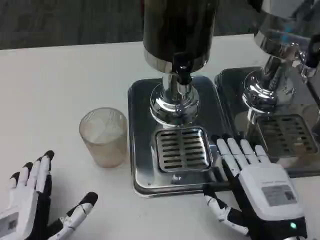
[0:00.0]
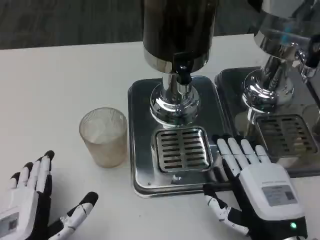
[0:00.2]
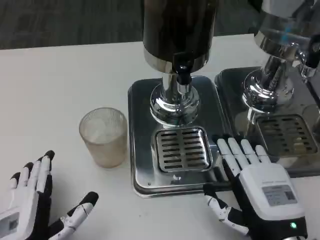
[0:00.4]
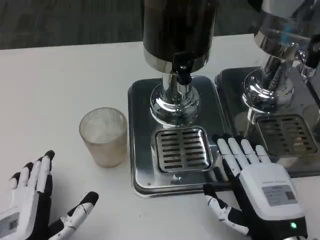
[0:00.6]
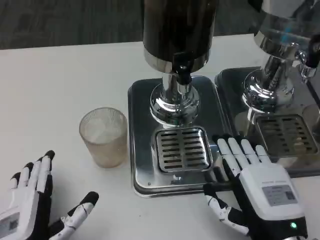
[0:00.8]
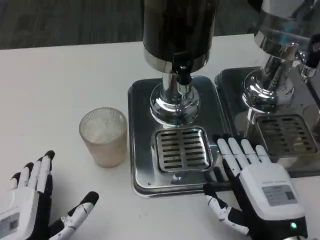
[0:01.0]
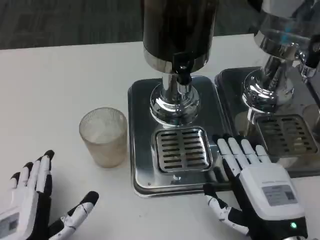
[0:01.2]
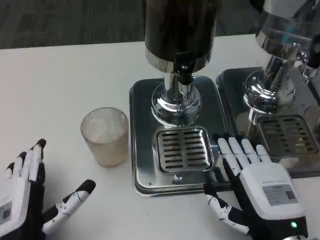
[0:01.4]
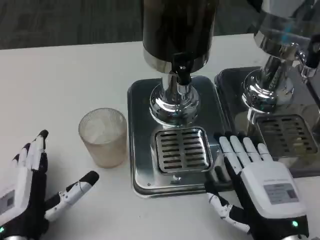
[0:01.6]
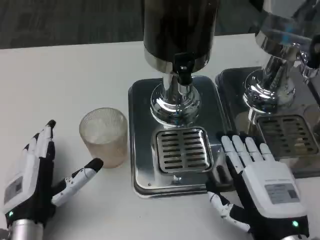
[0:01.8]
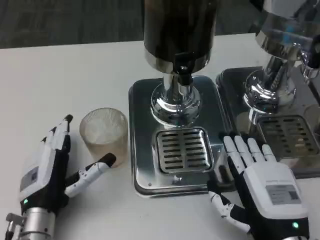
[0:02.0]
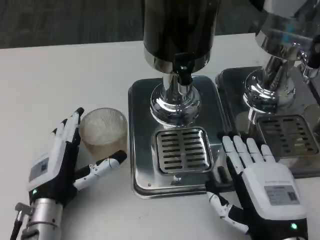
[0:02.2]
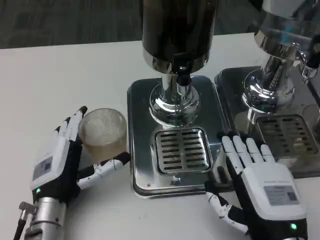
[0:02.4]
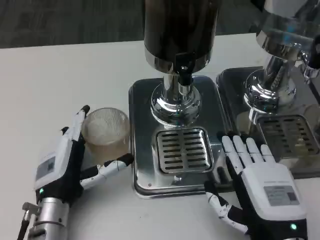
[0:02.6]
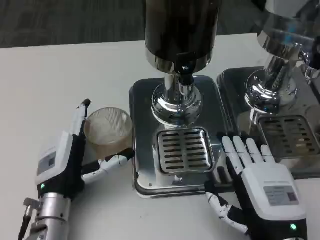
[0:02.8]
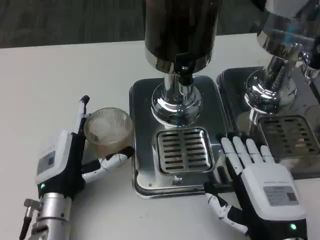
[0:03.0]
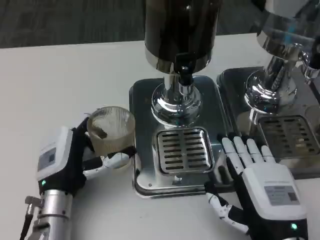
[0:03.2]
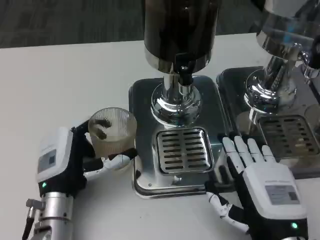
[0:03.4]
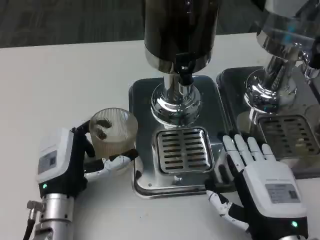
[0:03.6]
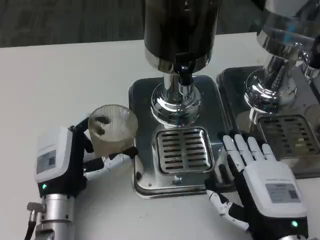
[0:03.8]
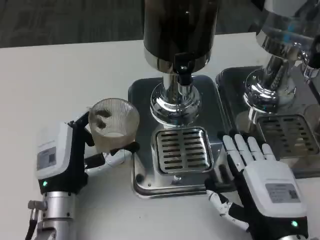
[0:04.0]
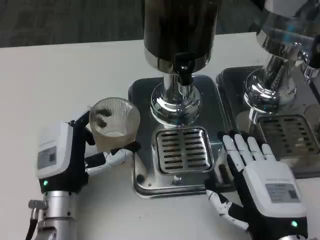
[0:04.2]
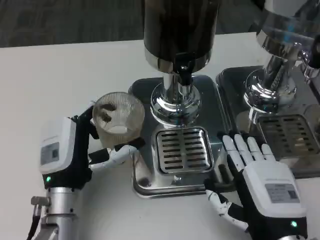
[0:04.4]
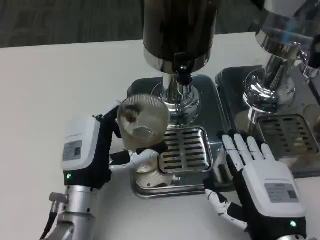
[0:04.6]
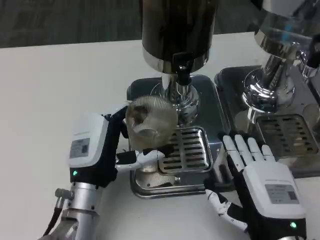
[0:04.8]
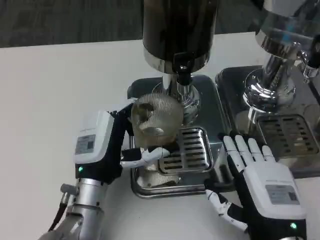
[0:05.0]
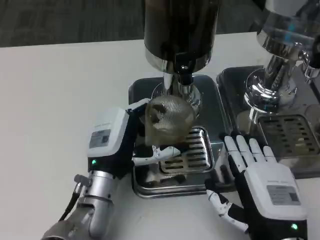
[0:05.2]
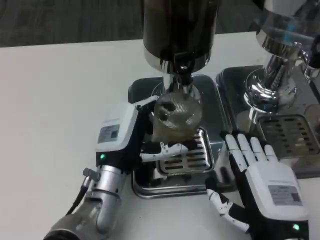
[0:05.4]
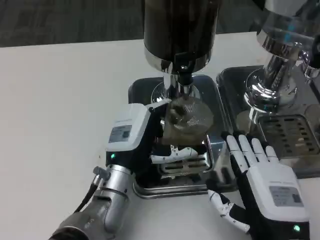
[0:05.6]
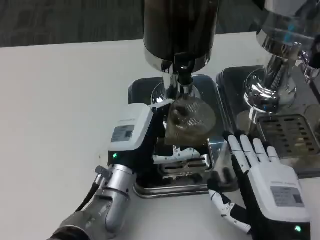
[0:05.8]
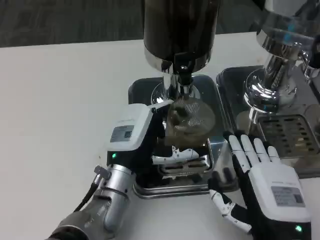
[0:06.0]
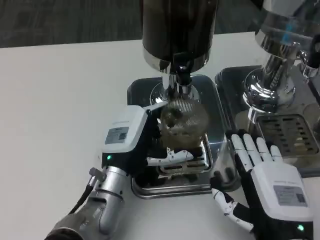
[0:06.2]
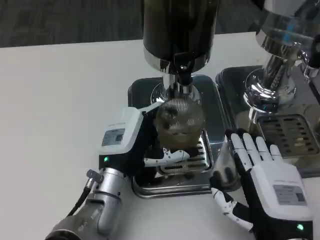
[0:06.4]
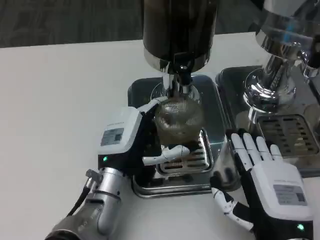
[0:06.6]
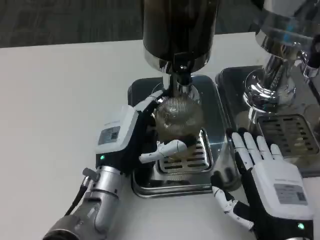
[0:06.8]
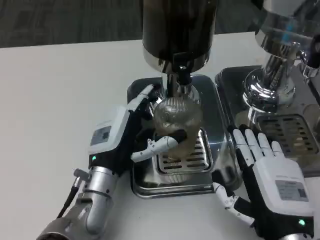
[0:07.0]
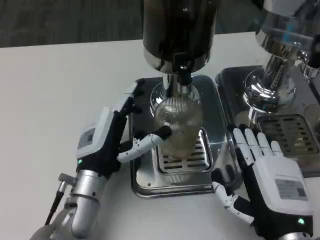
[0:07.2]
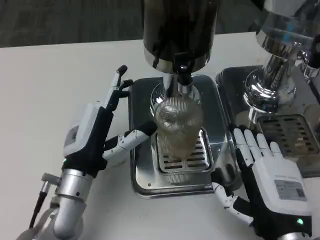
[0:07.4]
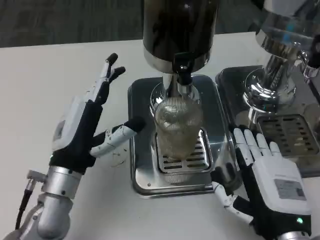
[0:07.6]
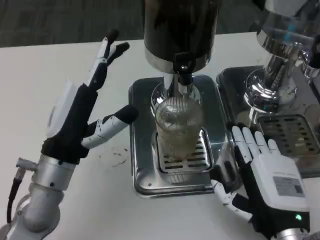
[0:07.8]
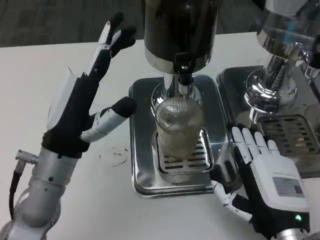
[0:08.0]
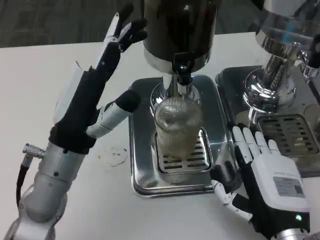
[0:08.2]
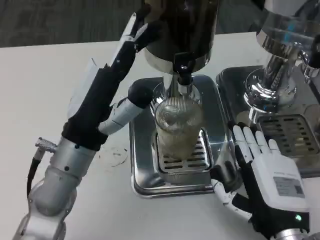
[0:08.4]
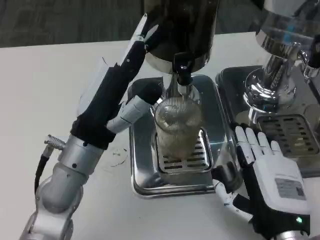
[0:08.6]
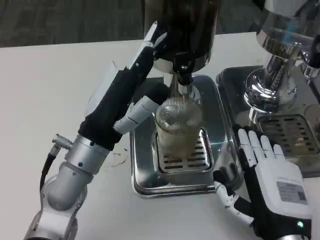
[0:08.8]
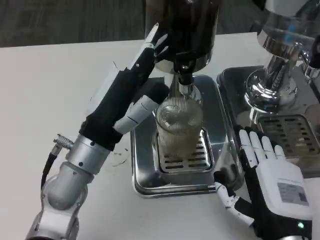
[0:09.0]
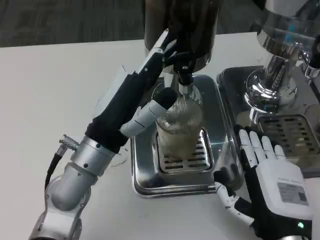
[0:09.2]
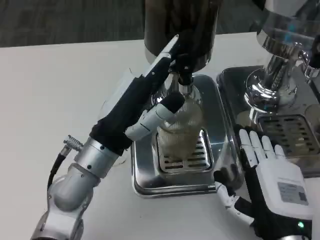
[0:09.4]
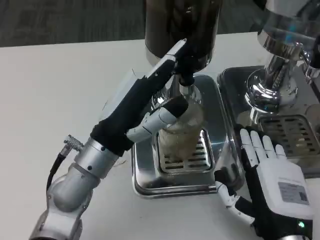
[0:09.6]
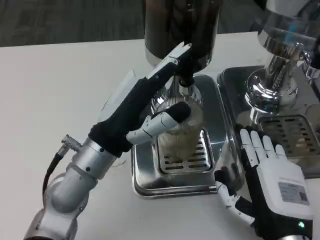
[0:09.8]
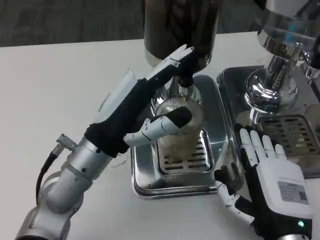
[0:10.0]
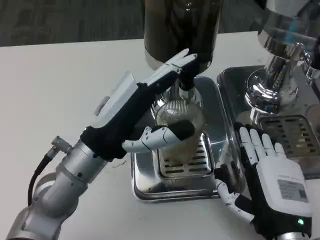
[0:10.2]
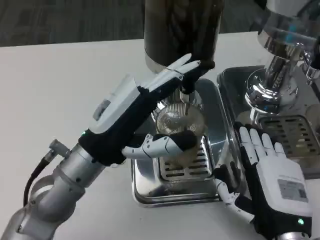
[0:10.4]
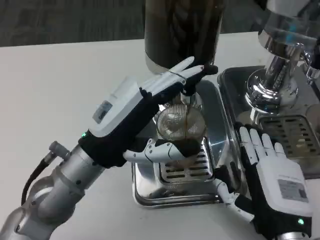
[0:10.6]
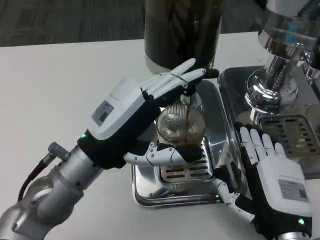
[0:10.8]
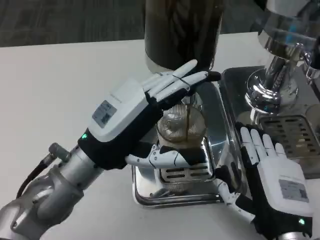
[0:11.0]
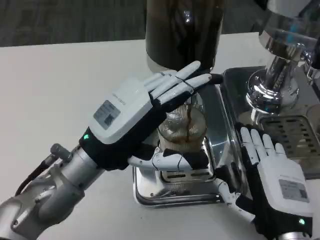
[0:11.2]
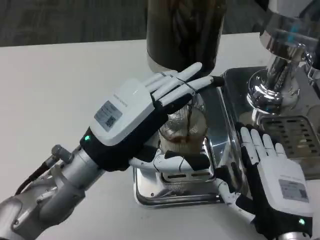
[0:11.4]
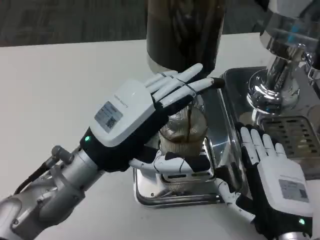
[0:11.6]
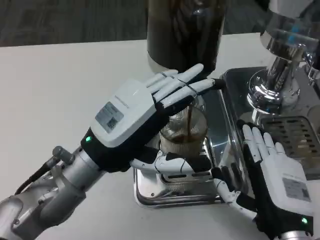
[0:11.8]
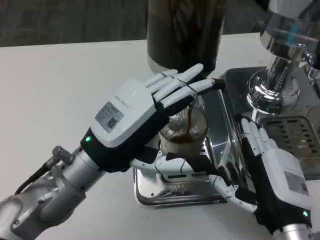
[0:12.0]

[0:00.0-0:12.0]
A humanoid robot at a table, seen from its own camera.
Task of the whole recording: Grasp the cup under the faucet to collect the drink, then remove the cup.
0:00.0 to 0:01.6: The left hand changes place by roughly 5 cm.
0:01.6 to 0:03.0: The left hand moves forward, roughly 5 cm.
0:03.0 to 0:04.4: The hands move only a little.
0:04.4 to 0:06.0: The left hand shifts some 5 cm to the right.
0:06.0 to 0:07.6: The left hand goes some 10 cm to the left.
0:07.6 to 0:09.0: The left hand changes place by roughly 5 cm.

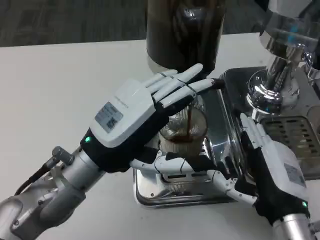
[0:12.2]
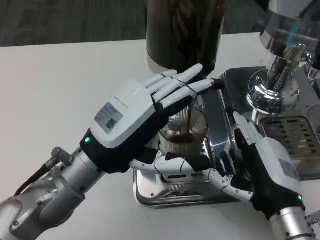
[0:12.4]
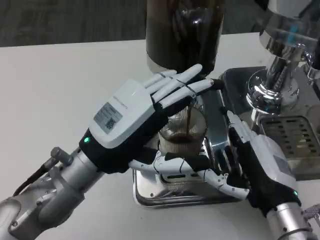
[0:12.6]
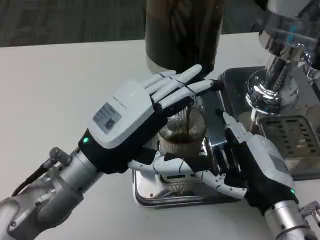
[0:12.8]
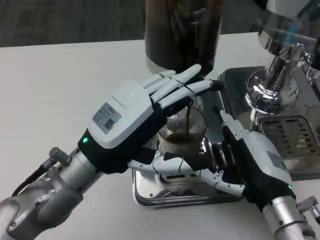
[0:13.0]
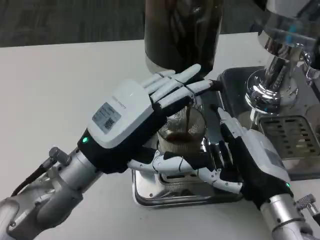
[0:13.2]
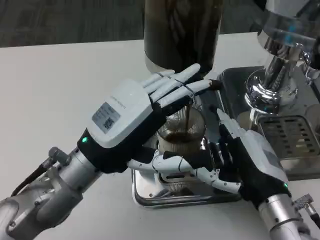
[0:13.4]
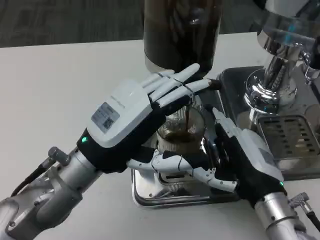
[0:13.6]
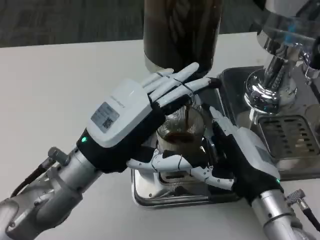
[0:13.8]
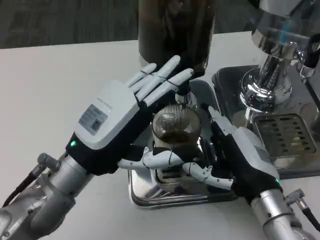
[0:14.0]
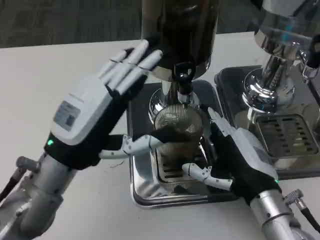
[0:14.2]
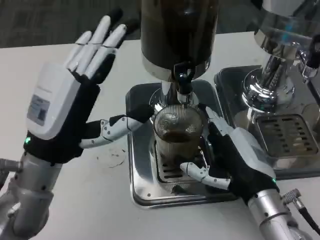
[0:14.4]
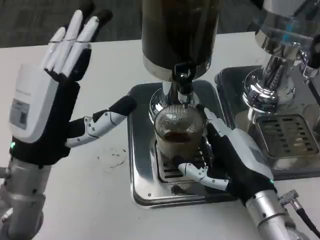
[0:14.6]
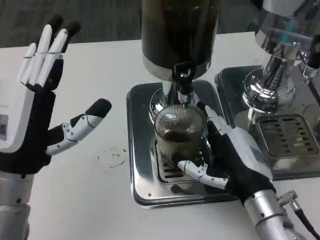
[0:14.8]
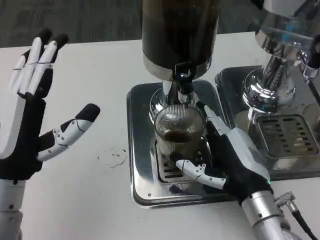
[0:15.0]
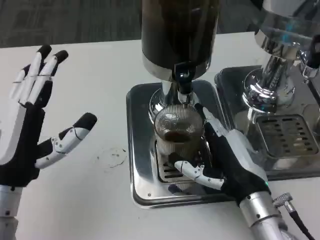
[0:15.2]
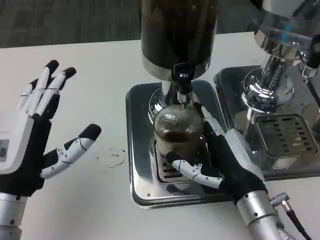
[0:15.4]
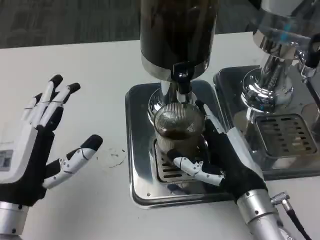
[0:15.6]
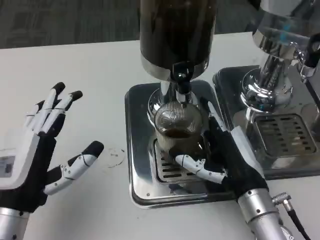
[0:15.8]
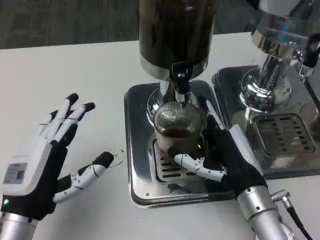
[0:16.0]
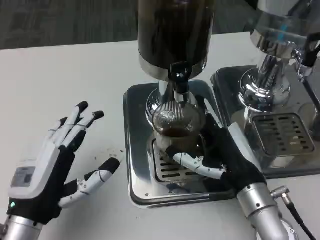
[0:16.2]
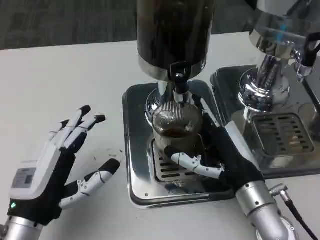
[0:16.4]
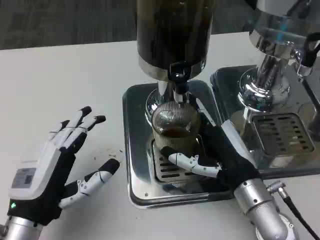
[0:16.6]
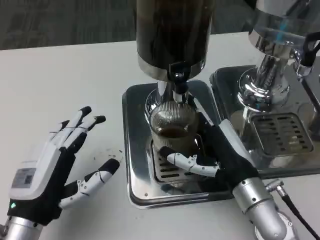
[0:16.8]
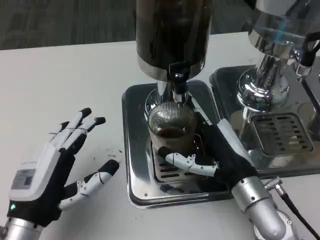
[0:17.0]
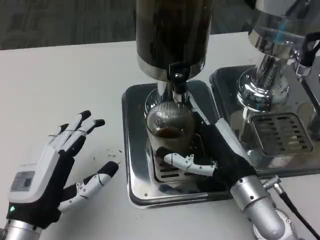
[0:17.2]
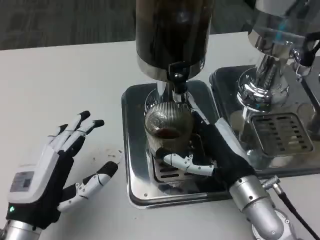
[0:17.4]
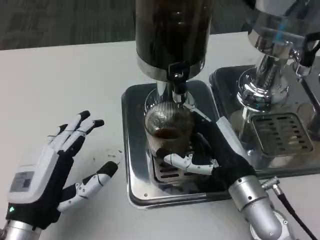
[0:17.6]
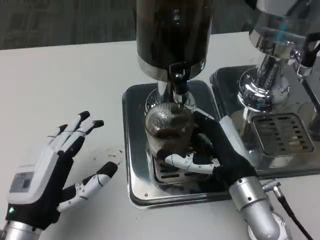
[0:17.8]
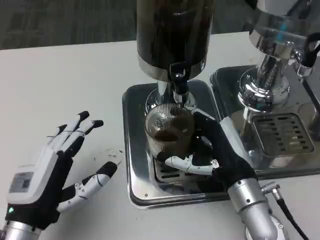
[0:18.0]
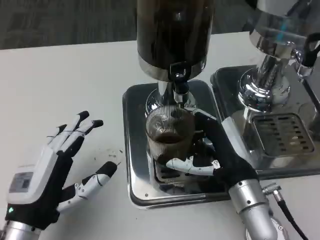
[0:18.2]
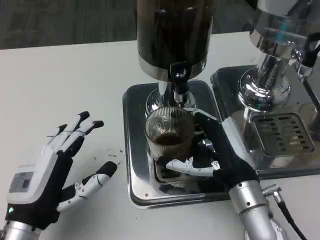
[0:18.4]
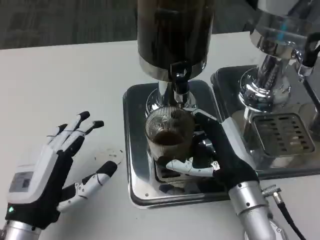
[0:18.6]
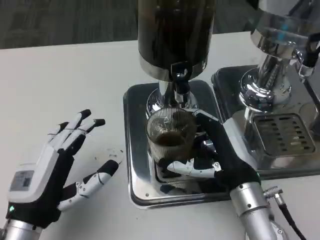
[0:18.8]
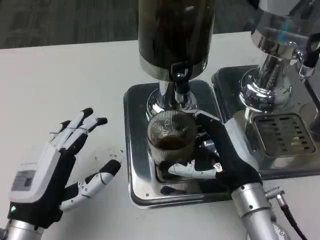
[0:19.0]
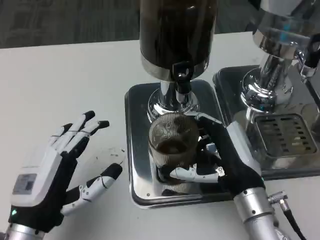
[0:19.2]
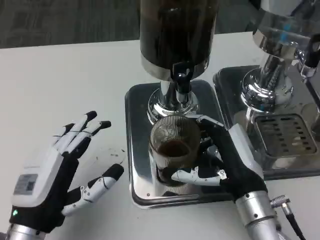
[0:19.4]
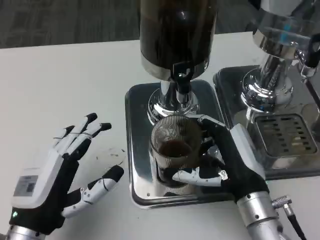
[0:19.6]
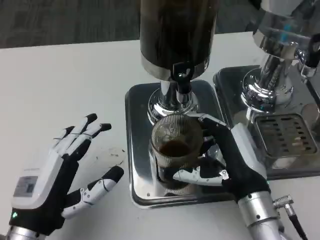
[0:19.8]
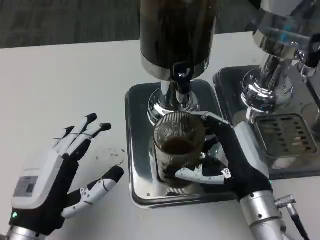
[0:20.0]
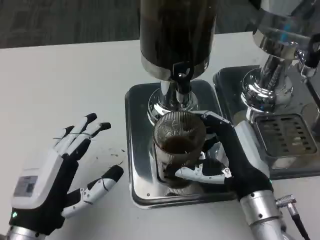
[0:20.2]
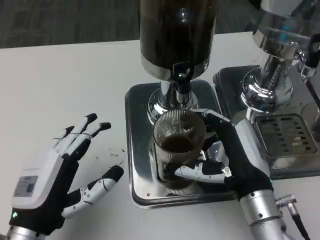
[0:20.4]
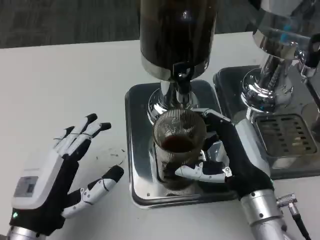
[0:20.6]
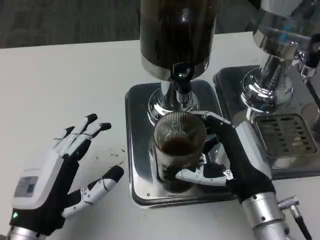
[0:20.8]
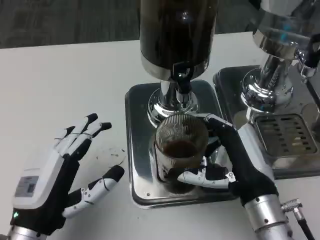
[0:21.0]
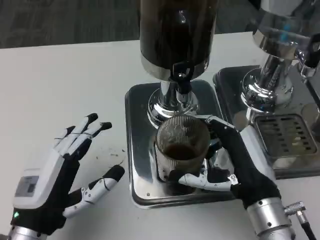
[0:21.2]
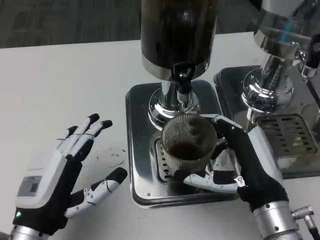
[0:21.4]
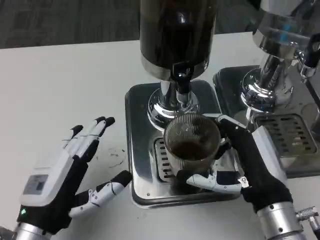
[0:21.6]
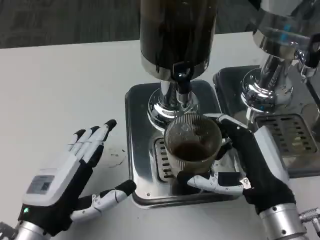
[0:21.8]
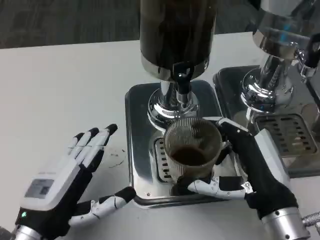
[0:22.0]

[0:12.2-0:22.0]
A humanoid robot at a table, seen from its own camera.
Task of the whole recording: Grasp the cup under the faucet to collect the drink, then remove the cup.
0:13.6 to 0:15.0: The left hand shifts some 5 cm to the left.
0:15.0 to 0:16.4: The left hand ends up roughly 5 cm from where it was.
0:16.4 to 0:17.8: Neither hand changes place.
0:19.2 to 0:20.6: Both hands stay put.

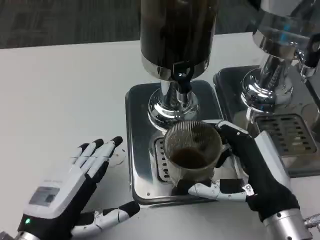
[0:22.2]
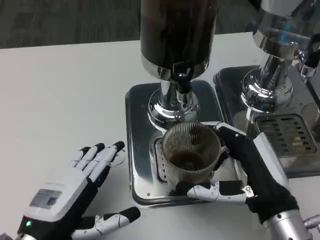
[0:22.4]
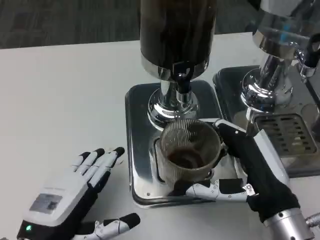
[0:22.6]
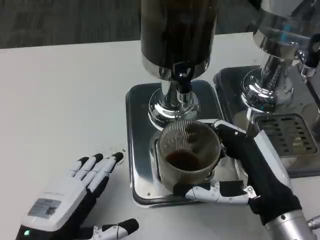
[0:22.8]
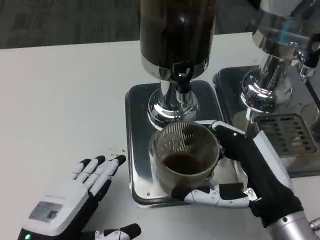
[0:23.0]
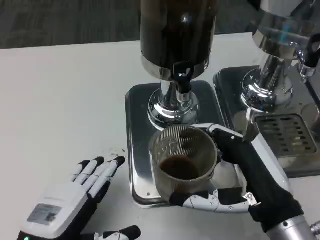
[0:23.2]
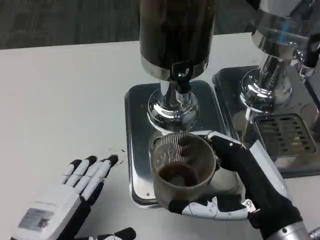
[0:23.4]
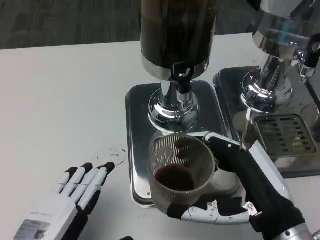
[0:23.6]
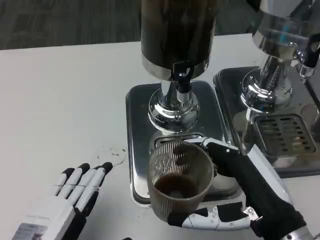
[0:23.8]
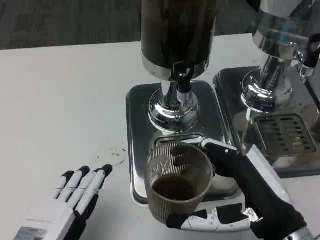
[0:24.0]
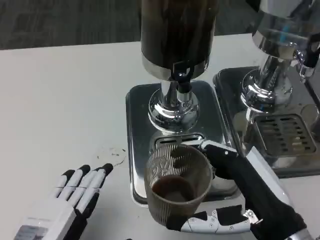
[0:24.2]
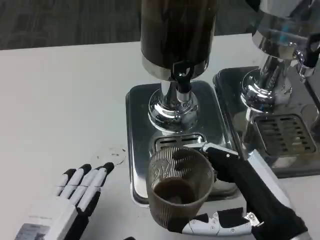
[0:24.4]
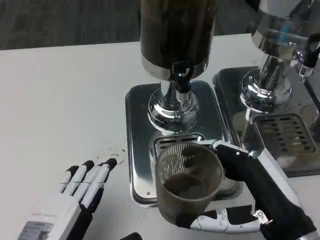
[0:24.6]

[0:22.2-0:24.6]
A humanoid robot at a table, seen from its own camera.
Task of the whole recording: Grasp the cup under the faucet to collect the drink, then remove the cup.
0:23.4 to 0:24.6: There are only small adjustments of the hands.
